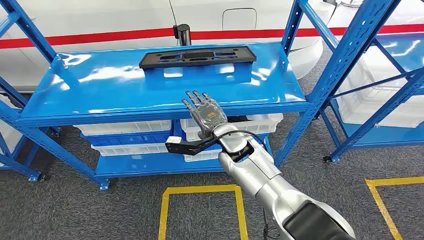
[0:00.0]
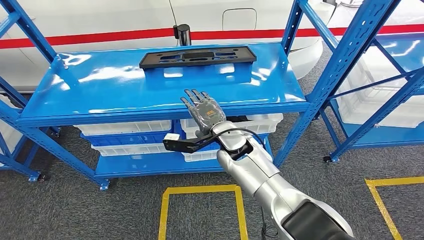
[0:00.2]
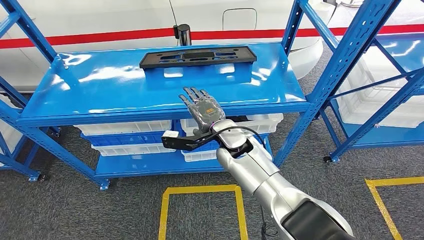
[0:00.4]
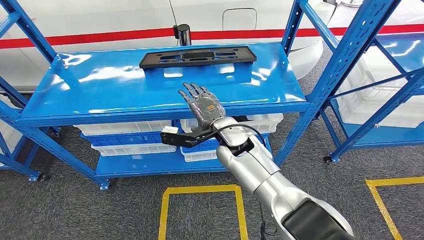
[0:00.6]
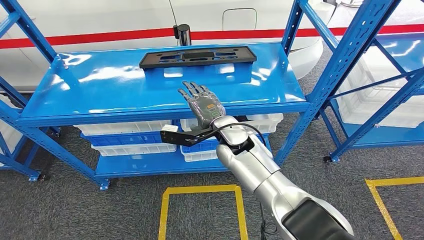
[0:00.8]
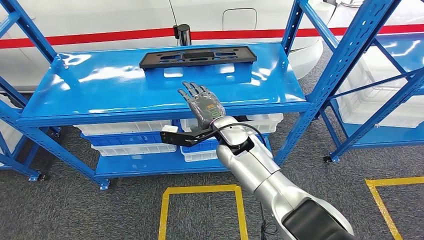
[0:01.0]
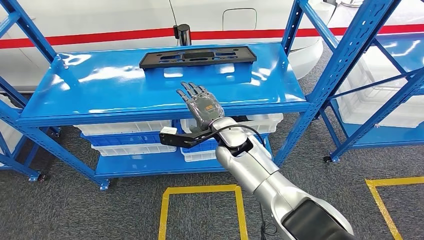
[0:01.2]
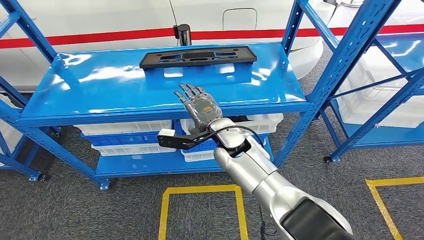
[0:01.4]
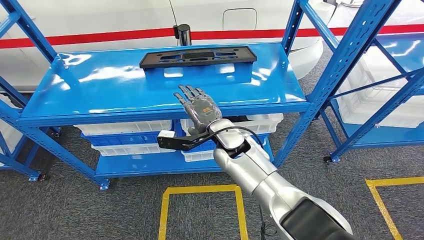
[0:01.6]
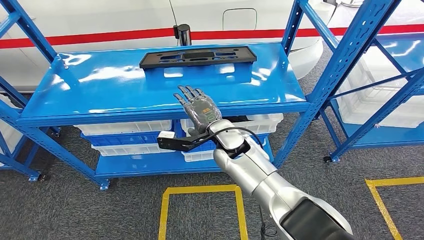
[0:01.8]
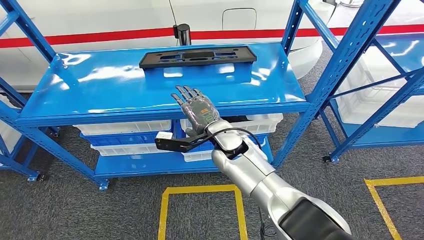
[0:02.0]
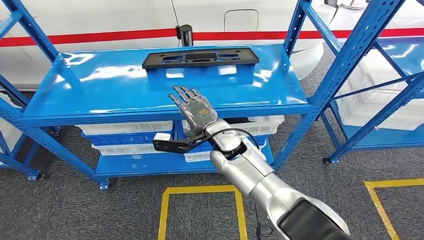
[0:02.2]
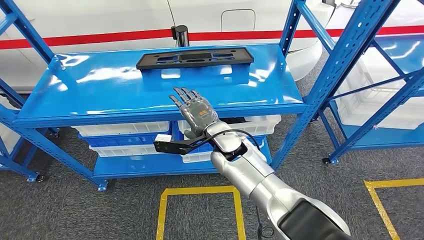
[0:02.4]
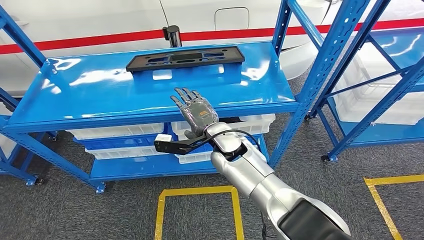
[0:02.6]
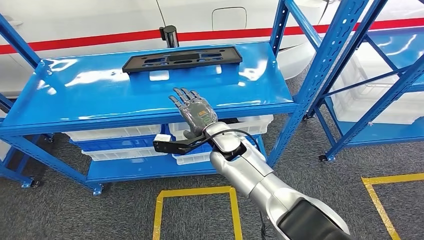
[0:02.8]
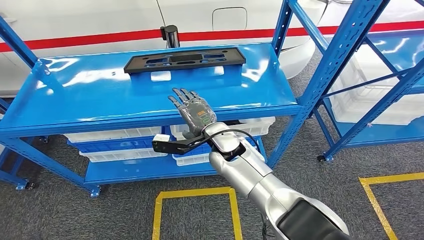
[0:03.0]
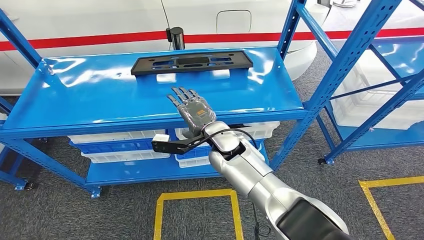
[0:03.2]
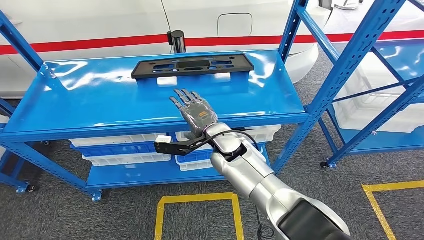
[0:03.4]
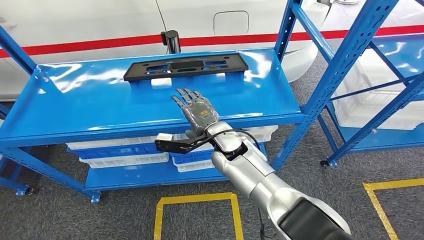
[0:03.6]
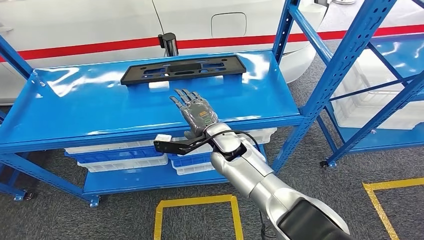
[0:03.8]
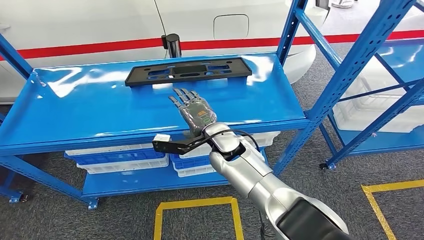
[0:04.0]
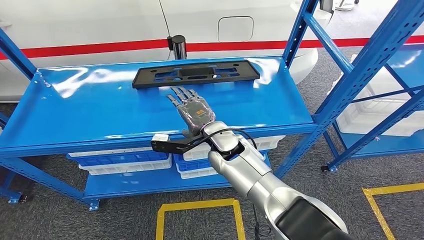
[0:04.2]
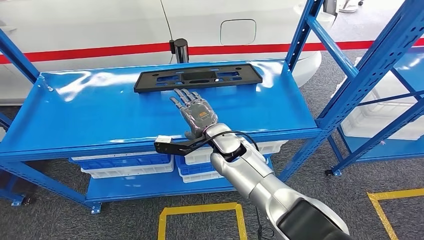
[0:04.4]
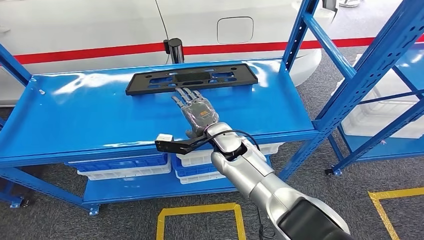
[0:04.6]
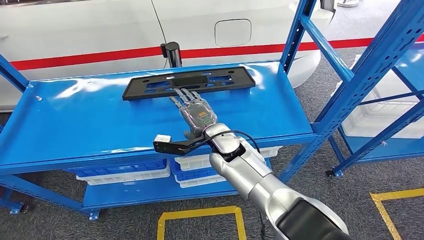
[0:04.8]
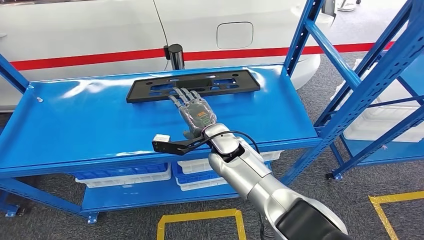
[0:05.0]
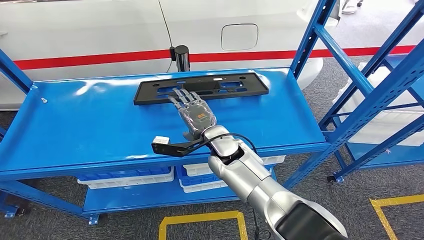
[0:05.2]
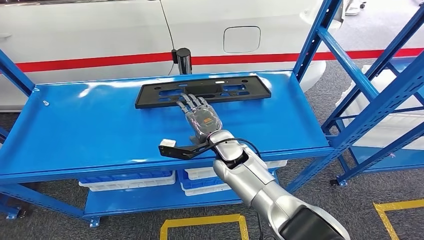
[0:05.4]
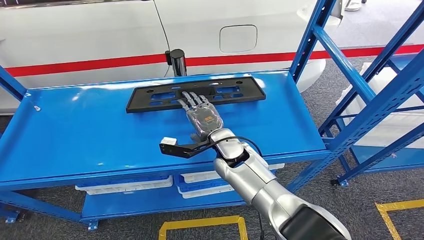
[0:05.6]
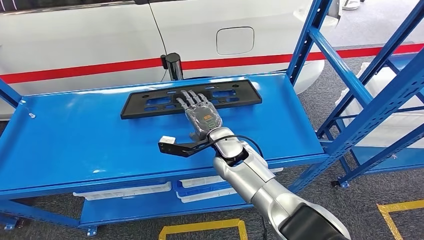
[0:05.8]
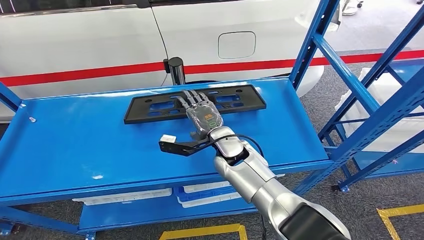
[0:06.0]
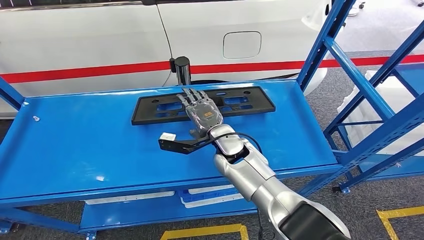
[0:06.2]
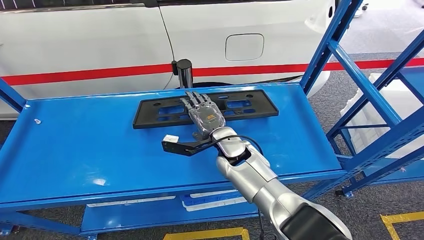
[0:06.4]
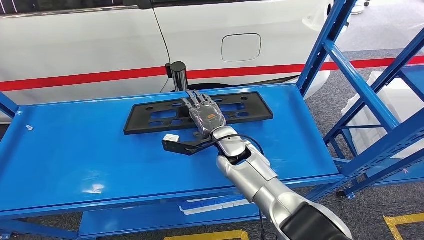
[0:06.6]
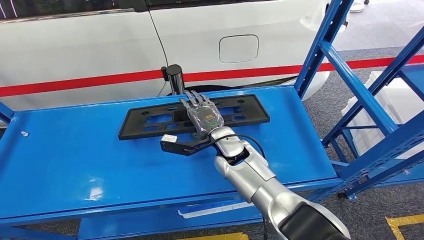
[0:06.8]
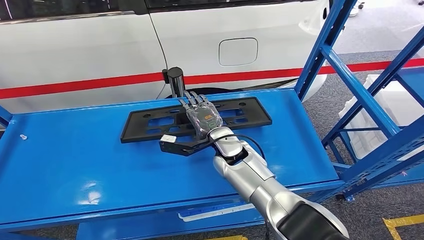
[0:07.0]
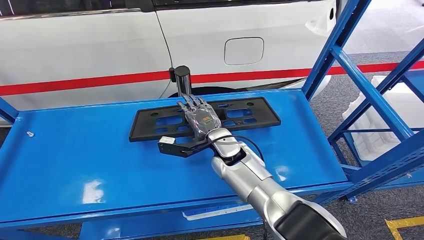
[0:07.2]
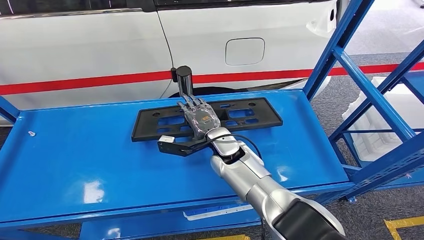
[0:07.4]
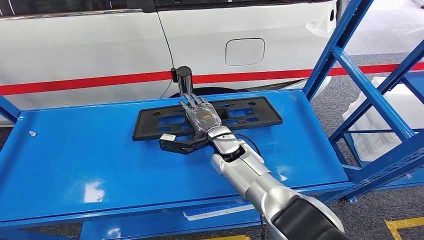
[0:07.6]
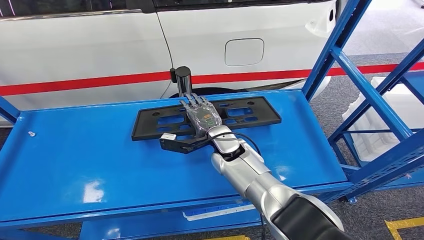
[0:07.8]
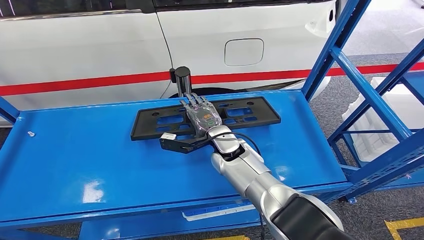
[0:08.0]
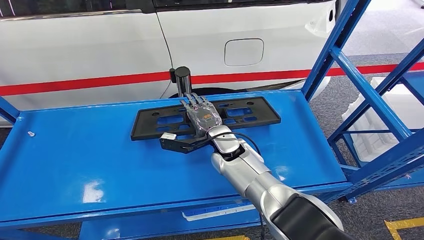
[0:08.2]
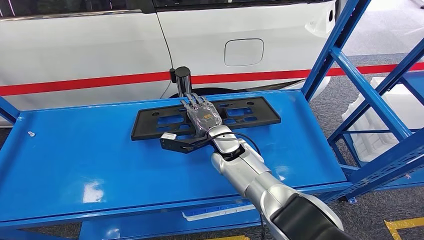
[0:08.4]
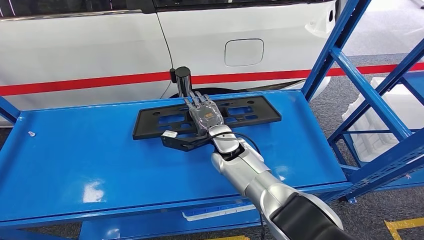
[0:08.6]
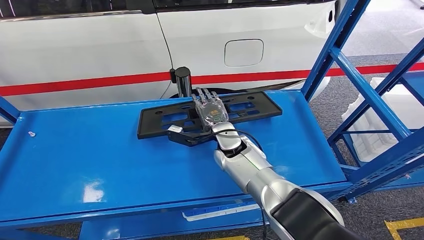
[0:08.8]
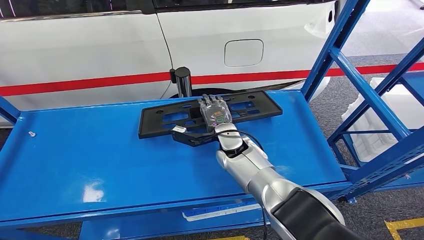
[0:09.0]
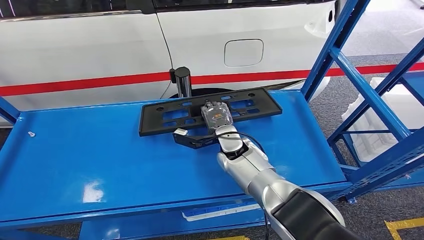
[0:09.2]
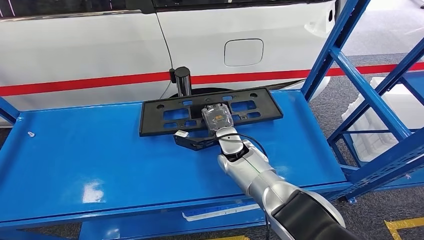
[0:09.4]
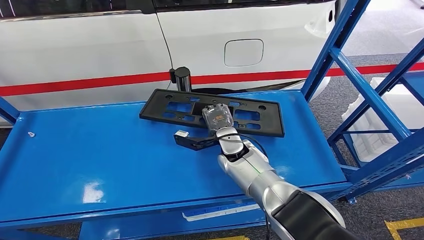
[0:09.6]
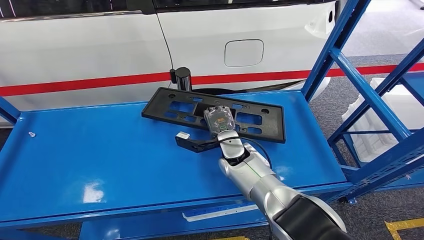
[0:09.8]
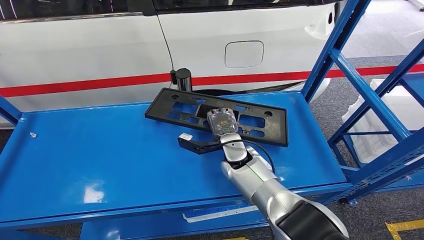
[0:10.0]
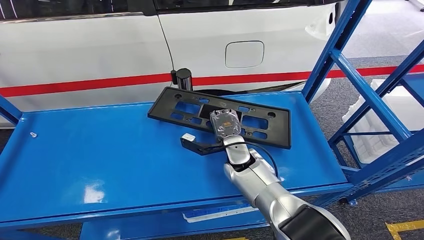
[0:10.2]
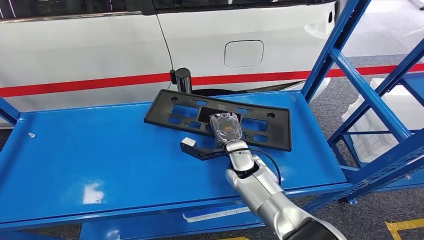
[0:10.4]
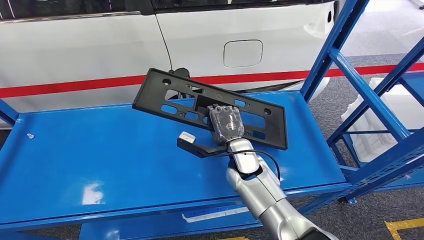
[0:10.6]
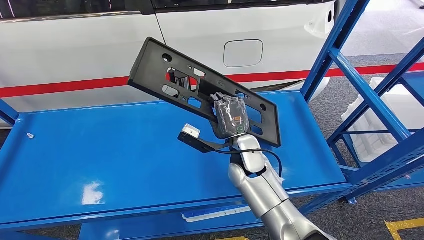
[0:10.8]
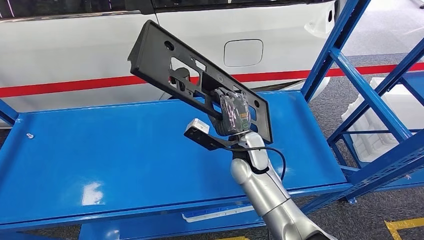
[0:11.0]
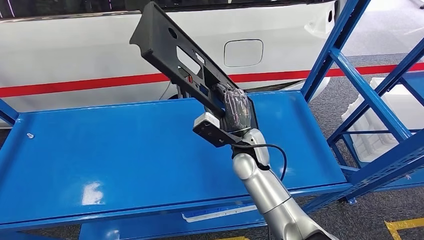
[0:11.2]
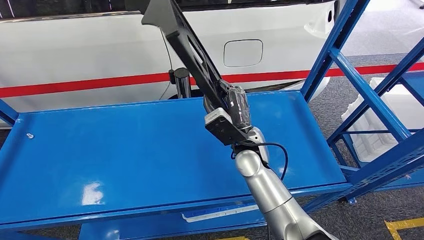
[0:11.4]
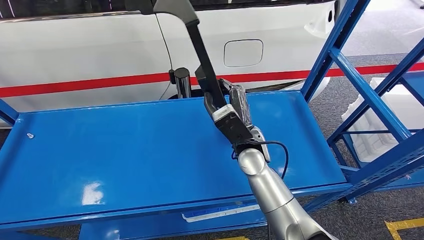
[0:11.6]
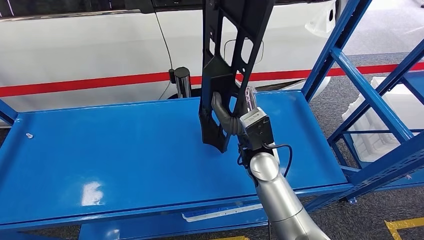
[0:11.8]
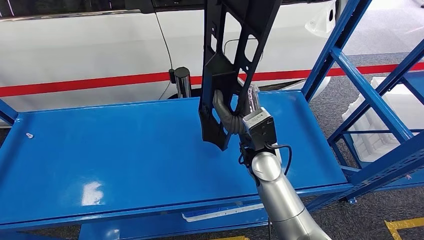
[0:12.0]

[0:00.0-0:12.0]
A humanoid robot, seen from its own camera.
0:07.6 to 0:09.0: There are only small adjustments of the hands.
0:09.0 to 0:10.4: The right hand ends up roughly 5 cm from where it was.

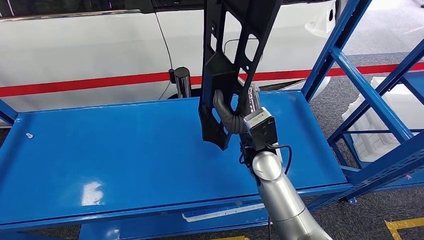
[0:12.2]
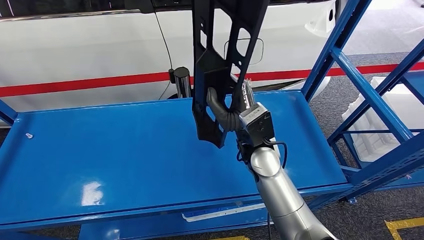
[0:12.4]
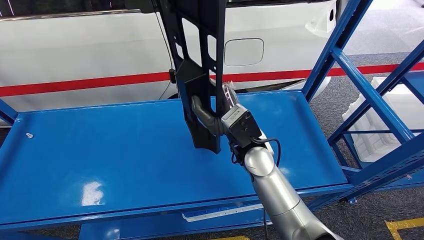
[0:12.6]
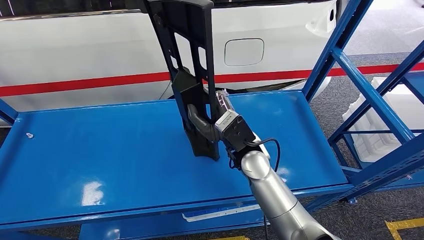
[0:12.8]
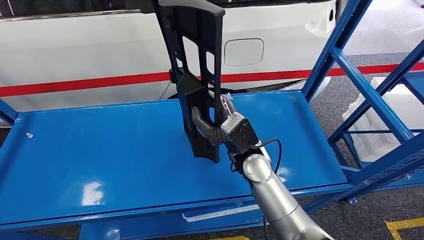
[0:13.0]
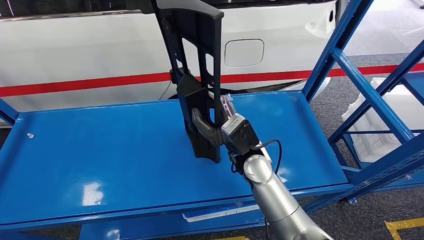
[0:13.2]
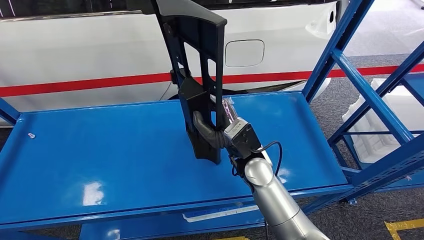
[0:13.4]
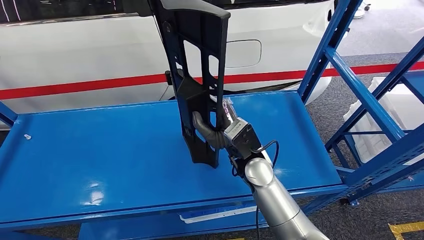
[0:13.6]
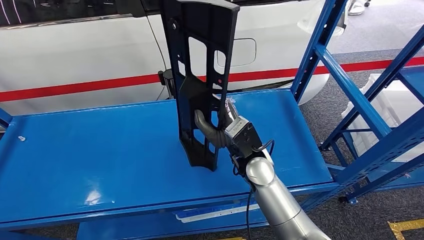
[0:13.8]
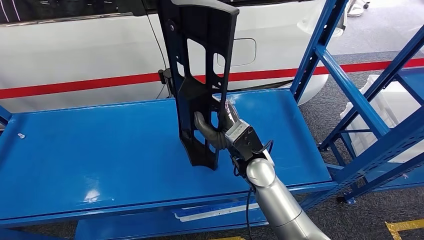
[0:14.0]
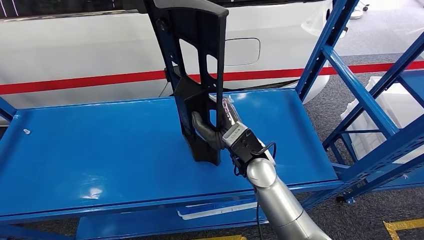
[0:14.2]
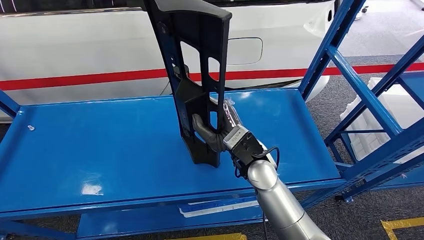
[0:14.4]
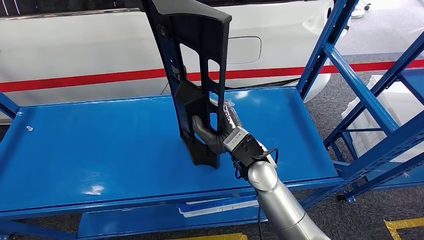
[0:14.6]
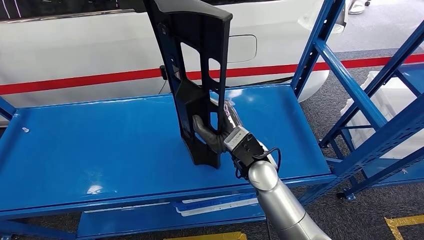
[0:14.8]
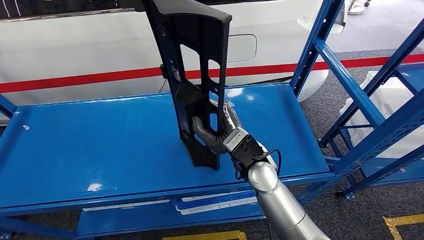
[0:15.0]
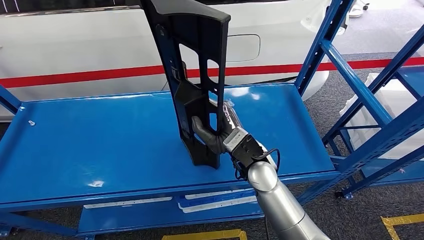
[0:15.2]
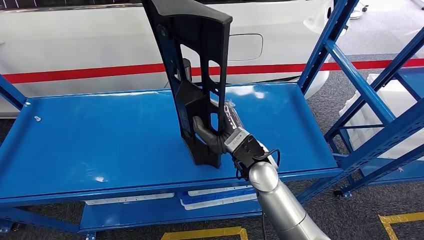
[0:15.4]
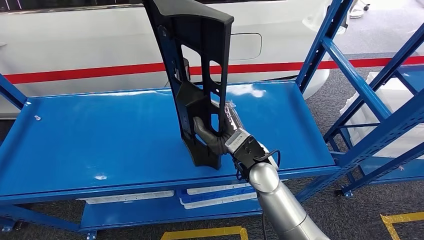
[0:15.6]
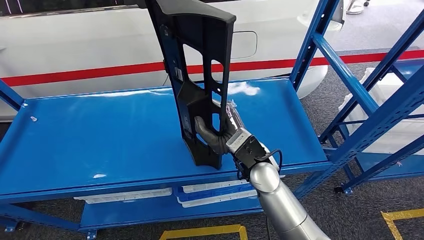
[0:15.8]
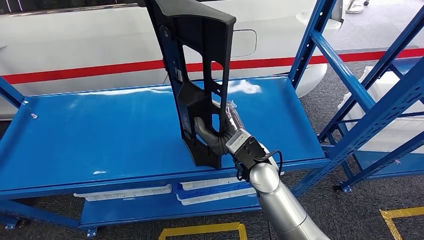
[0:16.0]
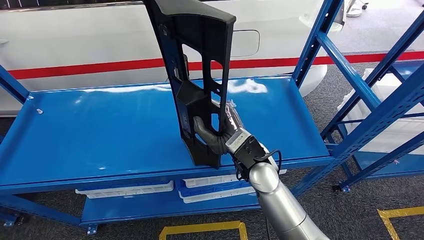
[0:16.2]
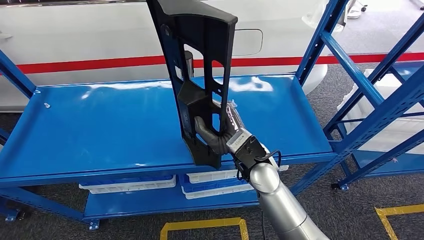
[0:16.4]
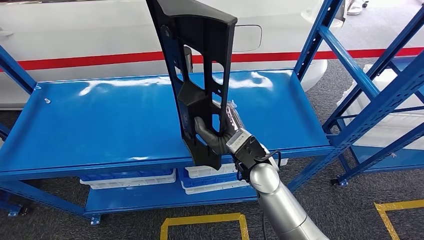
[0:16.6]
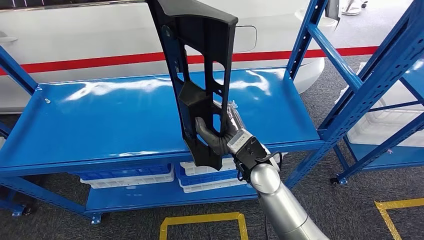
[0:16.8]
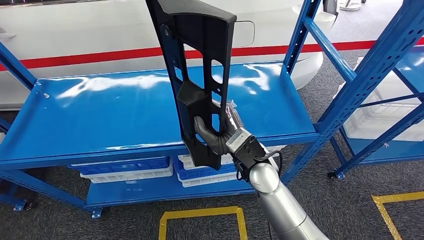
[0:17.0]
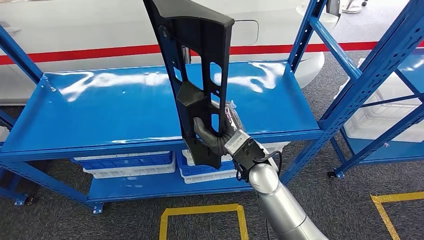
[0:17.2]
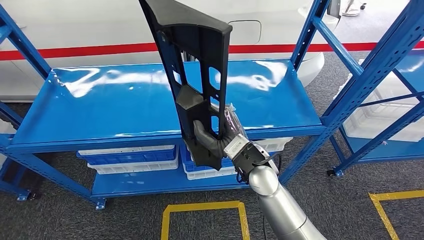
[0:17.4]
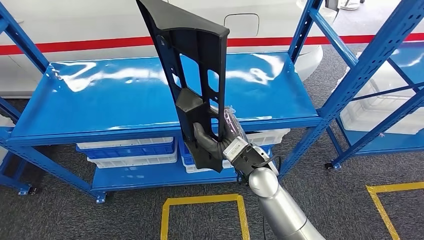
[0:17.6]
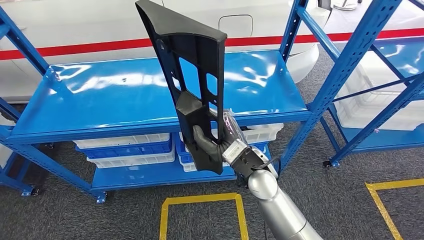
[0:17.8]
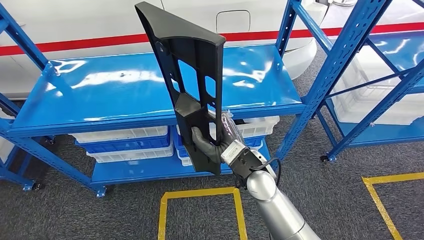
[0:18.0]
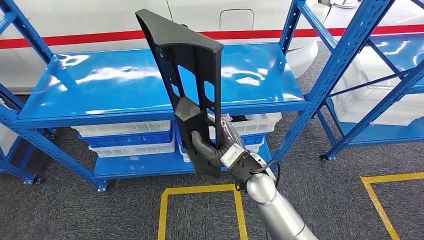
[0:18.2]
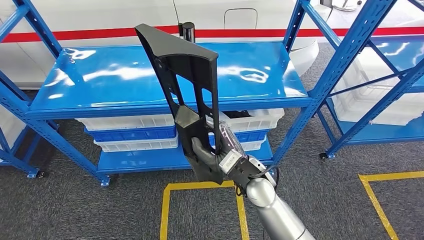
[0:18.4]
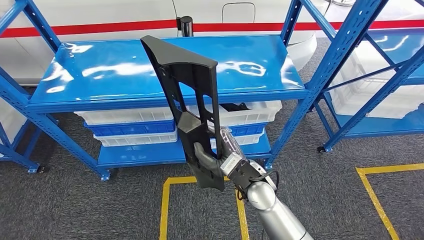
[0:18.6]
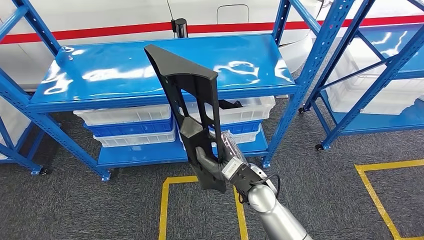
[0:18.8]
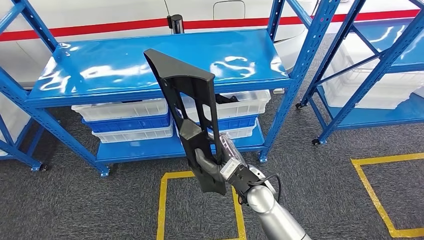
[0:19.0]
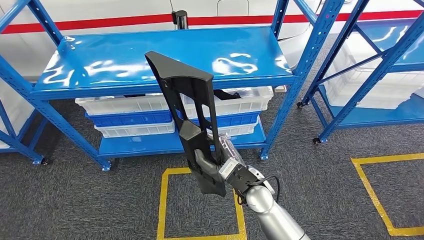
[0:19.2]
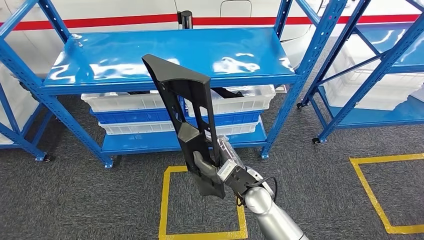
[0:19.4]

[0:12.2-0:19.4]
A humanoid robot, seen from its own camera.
Step, 0:12.2 to 0:17.0: Pick up the large material from the shelf.
